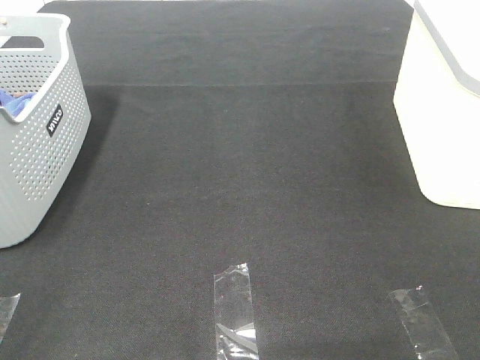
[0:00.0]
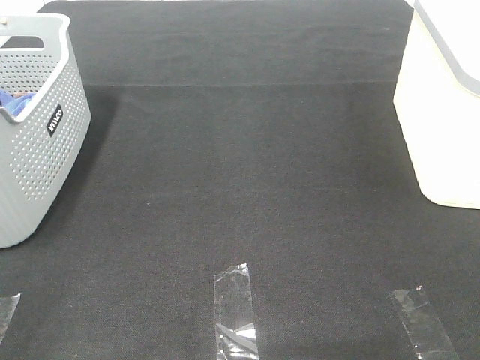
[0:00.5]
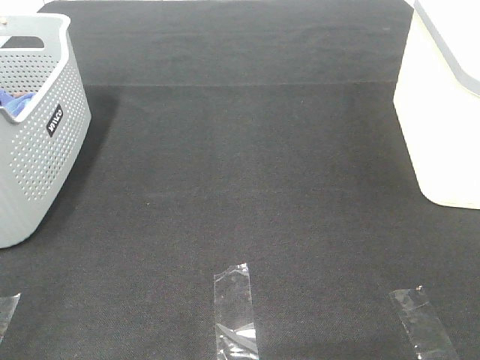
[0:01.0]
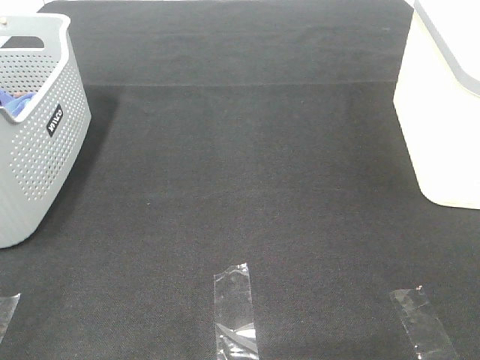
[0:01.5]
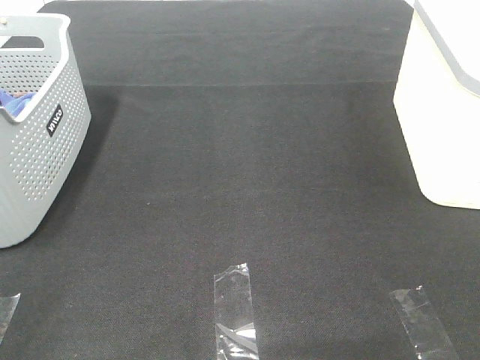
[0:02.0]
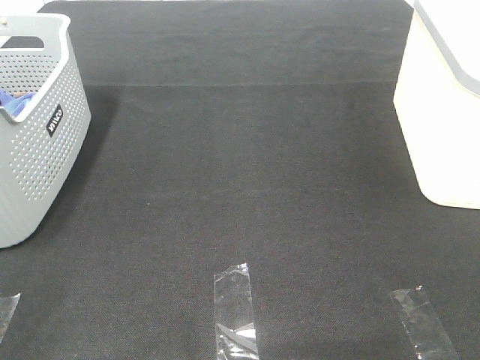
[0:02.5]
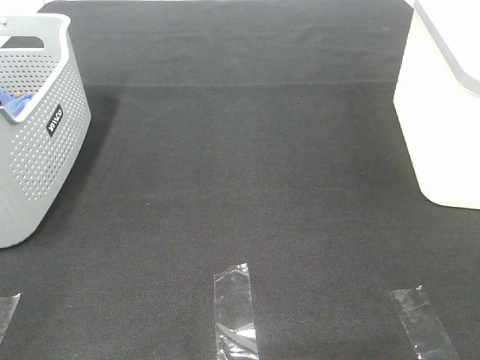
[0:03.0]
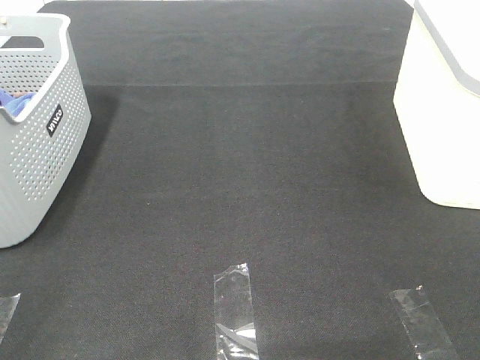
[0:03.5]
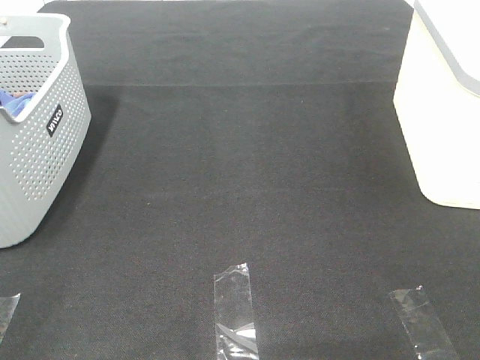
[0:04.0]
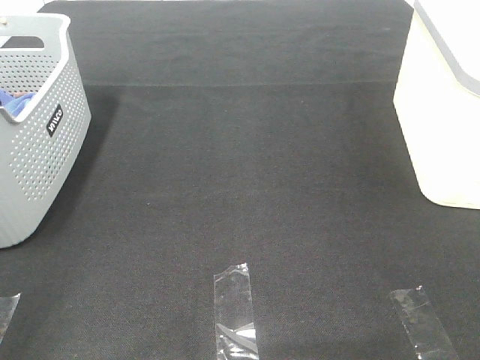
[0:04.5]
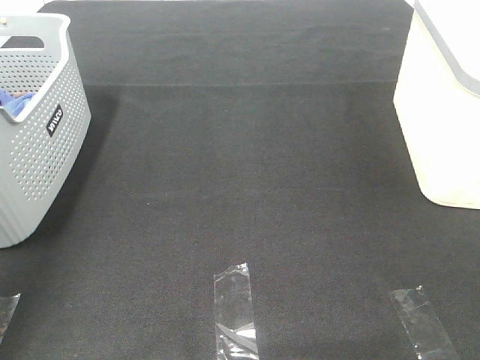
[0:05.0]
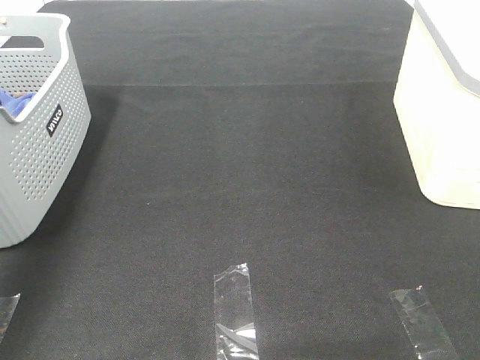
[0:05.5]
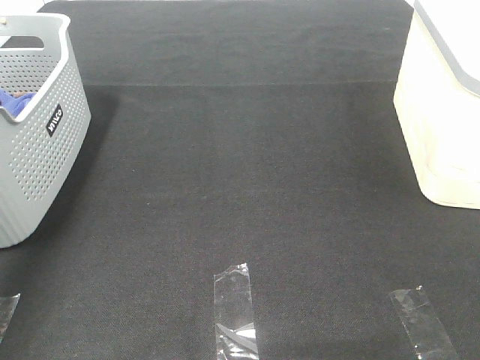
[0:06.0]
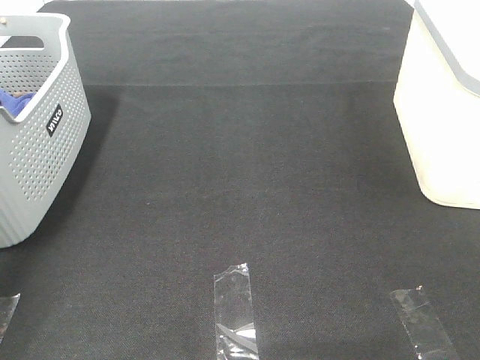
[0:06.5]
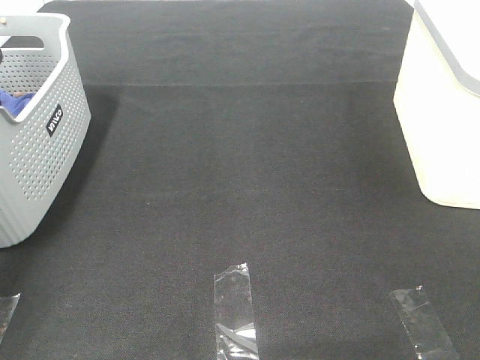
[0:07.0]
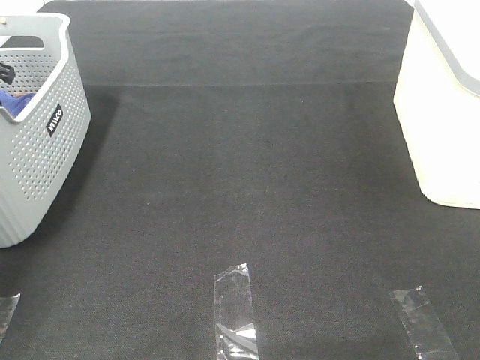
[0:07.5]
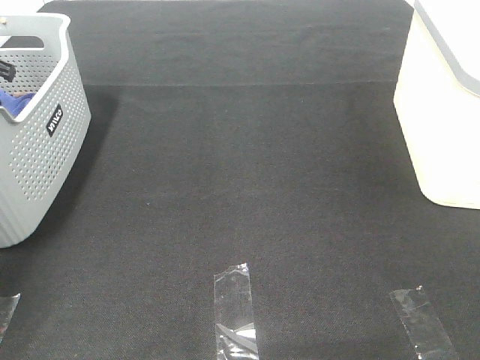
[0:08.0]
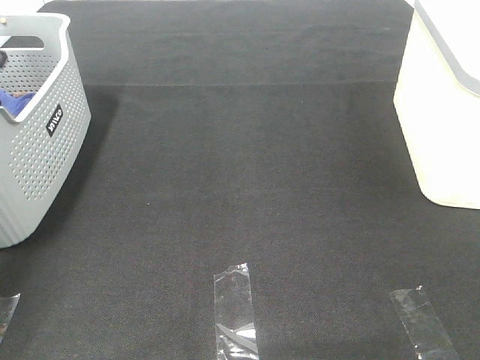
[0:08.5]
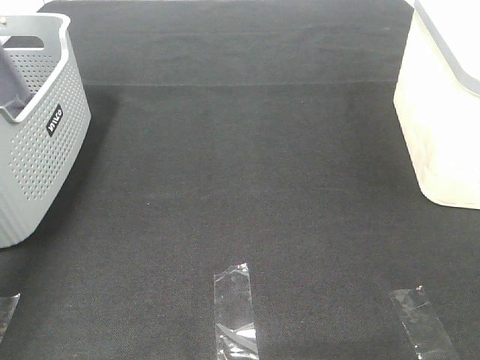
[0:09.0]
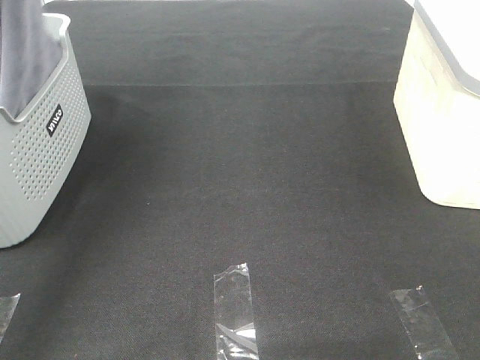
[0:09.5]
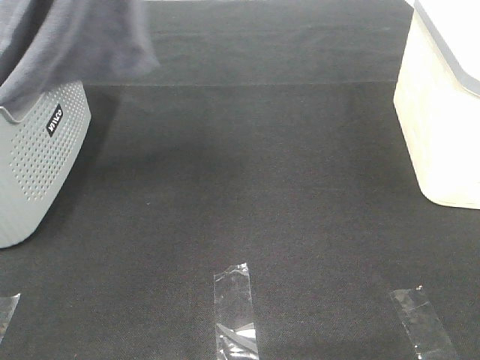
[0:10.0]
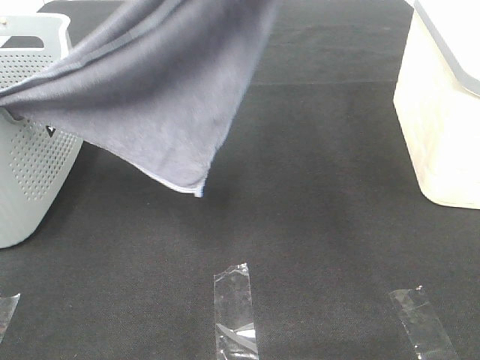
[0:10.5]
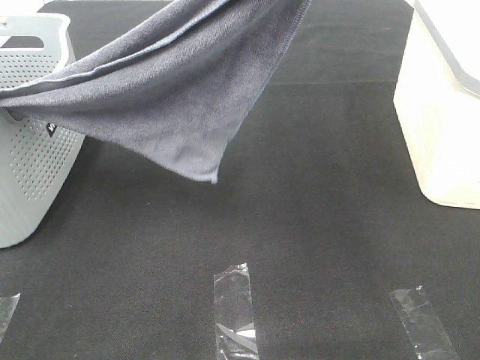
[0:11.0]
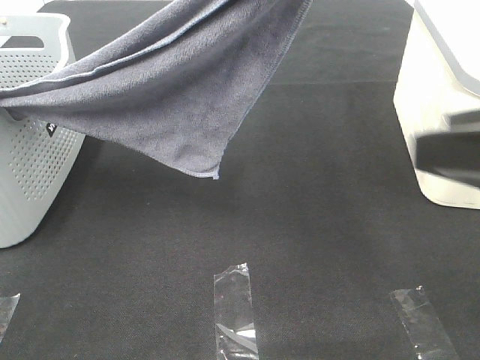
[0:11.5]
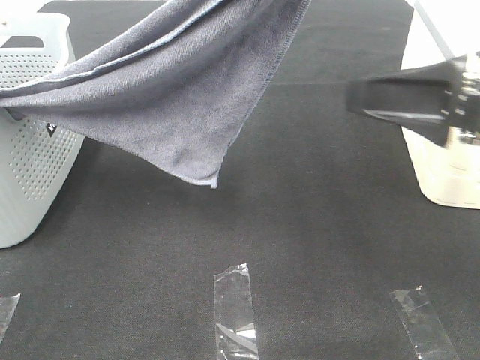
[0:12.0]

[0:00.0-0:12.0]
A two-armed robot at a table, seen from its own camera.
Task of the whole recording: Remove the towel and place it.
0.0 to 4.0 s: The two grippers keep their place.
4.0 to 6.0 s: The left gripper heads forward, covering approximately 40 cm.
8.0 to 10.0 s: The left gripper moves upward, to the right and backward, approximately 40 cm.
10.0 to 12.0 s: The right gripper moves forward, roughly 20 cm. Meanwhile the left gripper goes approximately 15 cm to the right and backward.

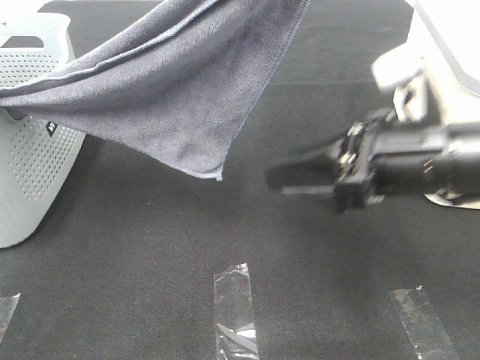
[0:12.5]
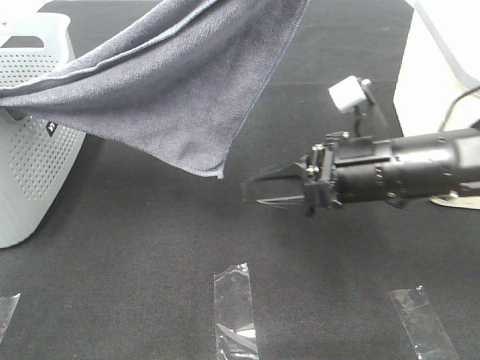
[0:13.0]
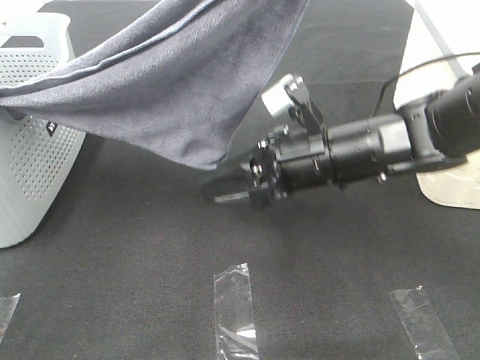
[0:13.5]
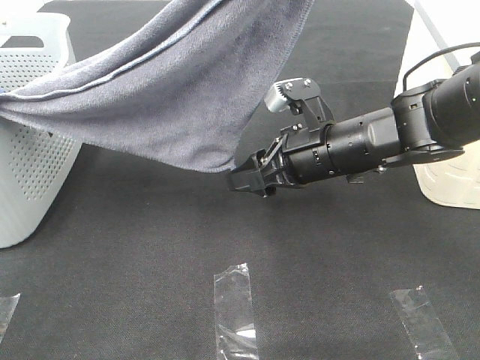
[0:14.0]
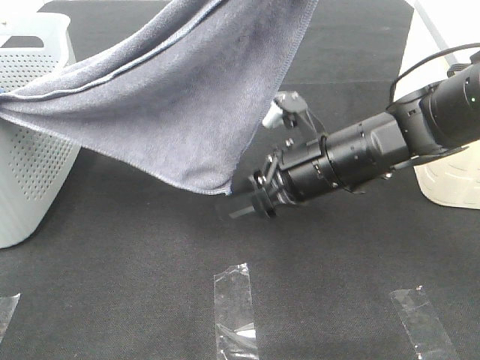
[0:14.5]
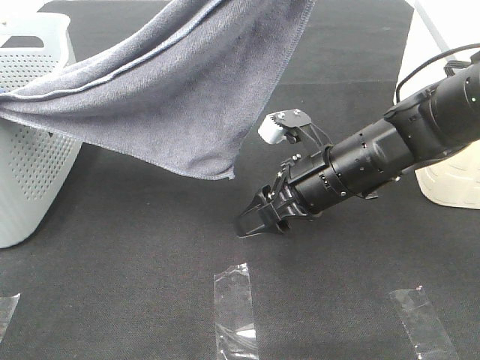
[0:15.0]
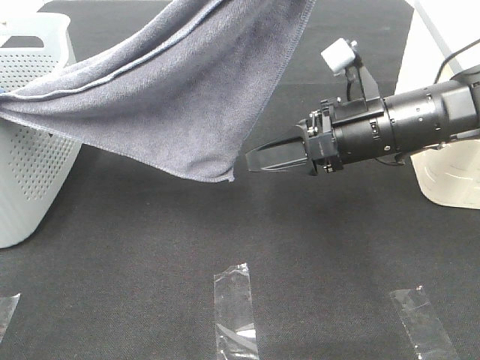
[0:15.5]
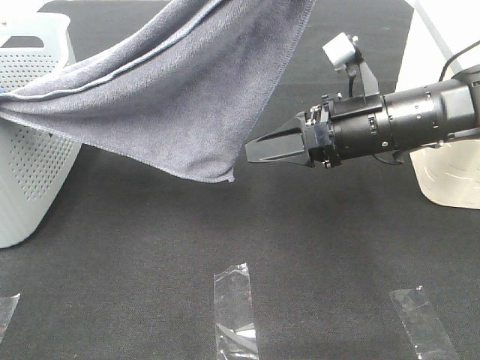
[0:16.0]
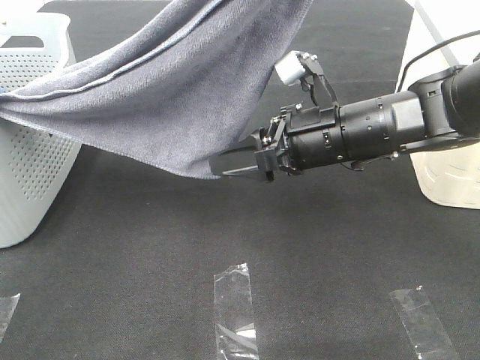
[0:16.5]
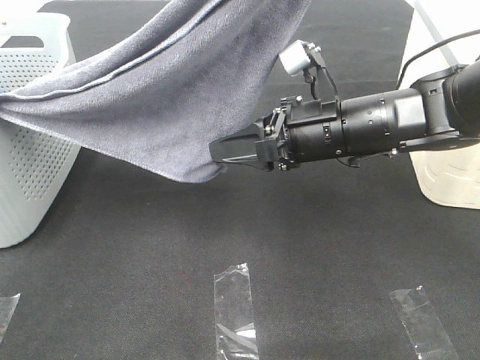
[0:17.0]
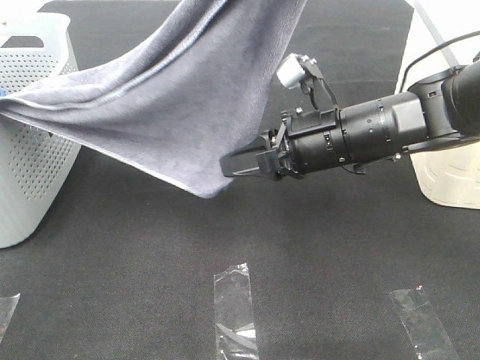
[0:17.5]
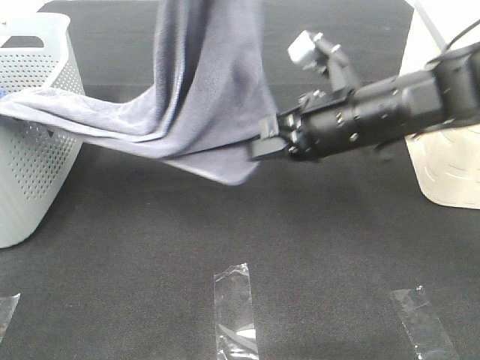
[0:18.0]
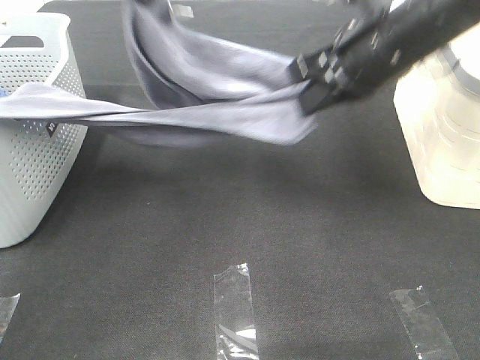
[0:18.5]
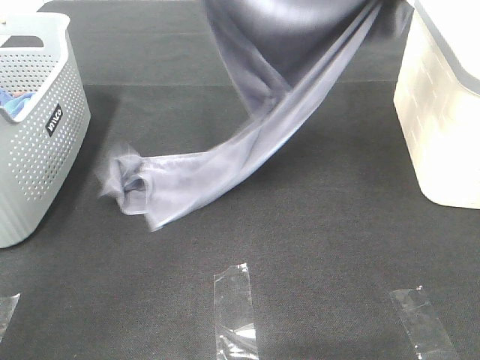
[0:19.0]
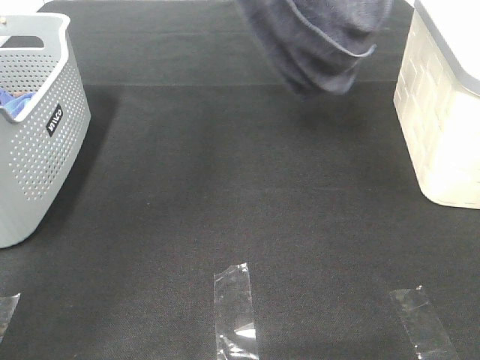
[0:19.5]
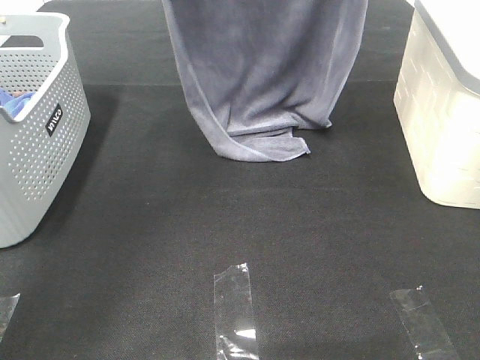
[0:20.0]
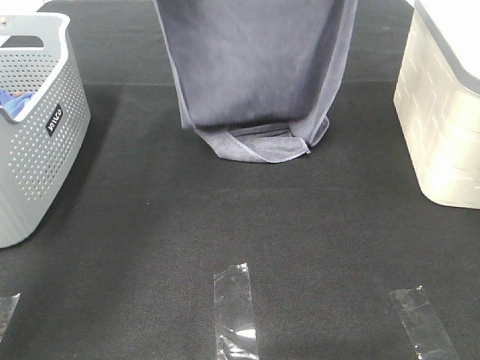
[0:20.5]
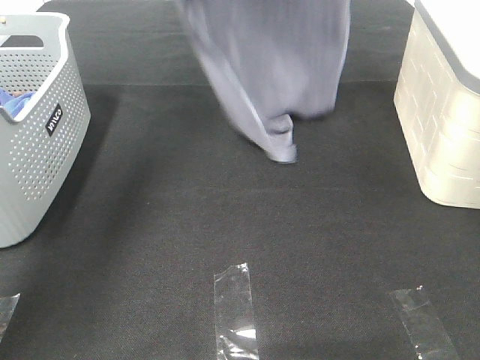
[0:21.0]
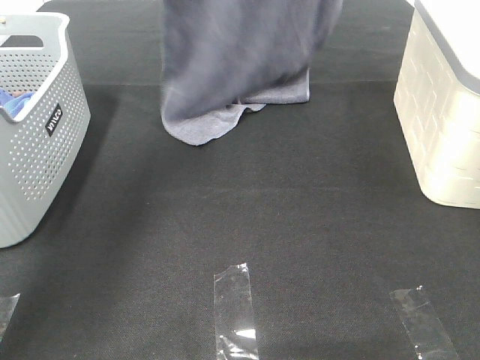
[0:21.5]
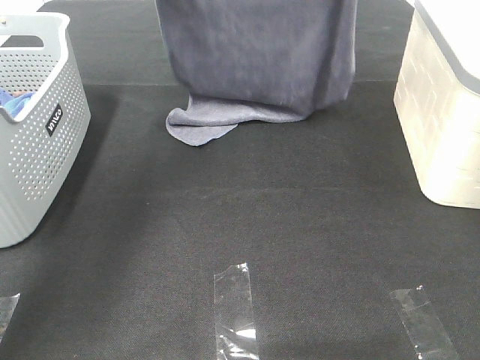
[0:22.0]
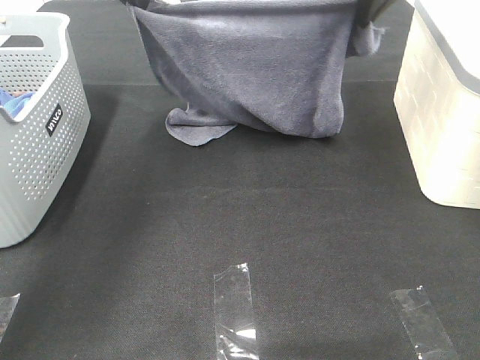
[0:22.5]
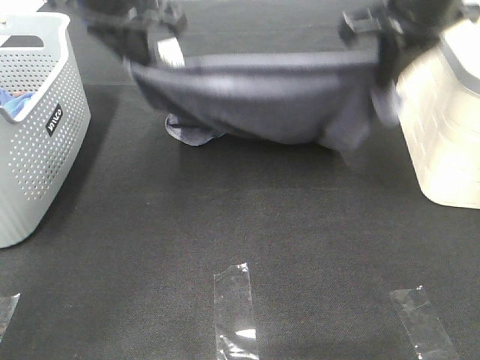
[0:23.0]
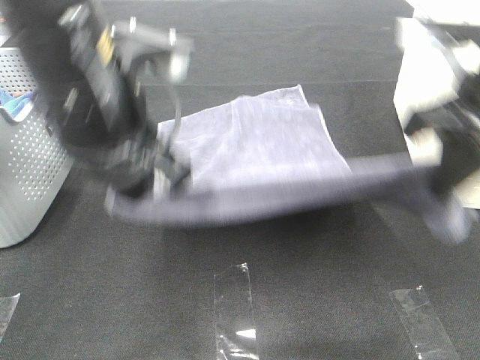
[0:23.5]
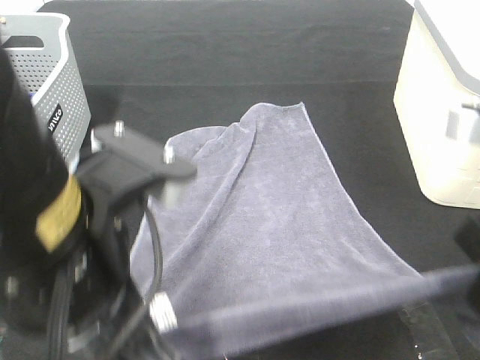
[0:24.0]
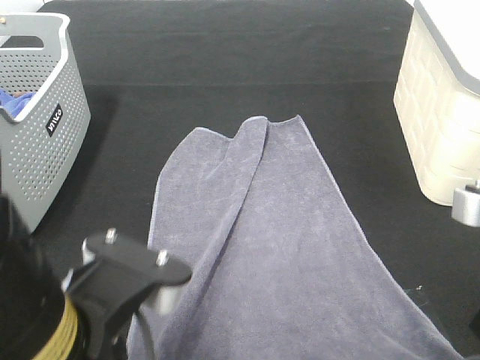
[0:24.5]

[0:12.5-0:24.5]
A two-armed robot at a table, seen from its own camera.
Task of the whole recording: Remove the towel and place it.
Step, 12.5 to 16.5 s: Right hand: grab a corner of the grey towel and straighten it.
Step, 17.0 to 20.5 s: Left hand: spread the grey towel flat on the table.
Step, 17.0 to 20.5 s: Right hand: spread the grey towel flat on the table.
12.5 to 14.5 s: The right gripper goes about 10 cm forward, downward and to the left.
14.5 to 16.5 s: The grippers make only small movements.
16.5 to 18.5 s: The left gripper is displaced forward, to the left and downward by about 15 cm; the right gripper is displaced upward by about 10 cm, and closes.
18.5 to 20.5 s: The left gripper shifts approximately 10 cm forward, and reaches about 15 cm upward, then returns. Meanwhile the right gripper goes roughly 15 cm forward and upward.
20.5 to 22.5 s: The left gripper moves about 10 cm upward and comes back.
22.5 to 24.5 s: Both grippers travel together backward, some 35 cm.

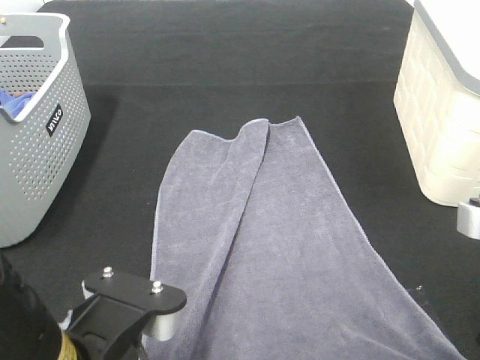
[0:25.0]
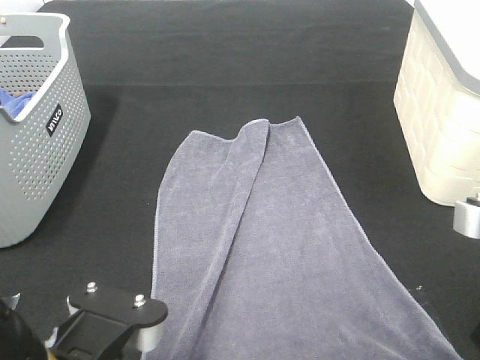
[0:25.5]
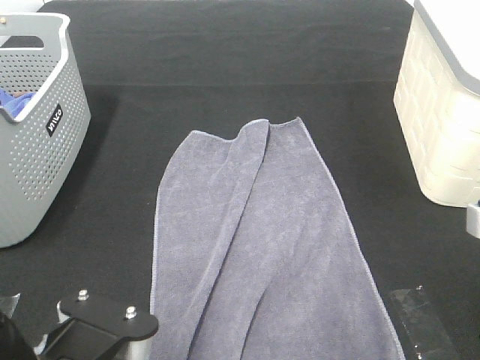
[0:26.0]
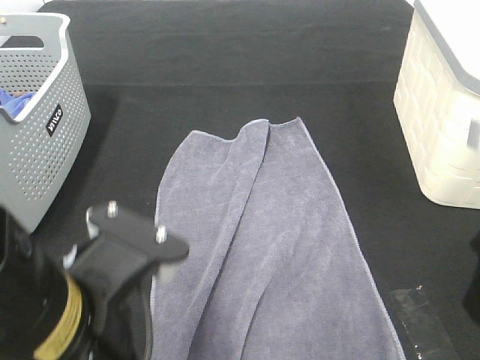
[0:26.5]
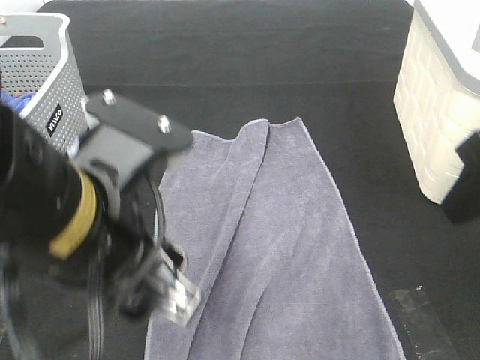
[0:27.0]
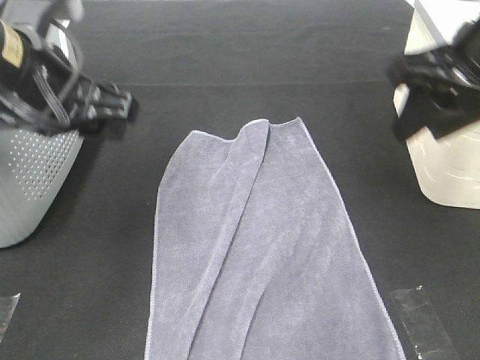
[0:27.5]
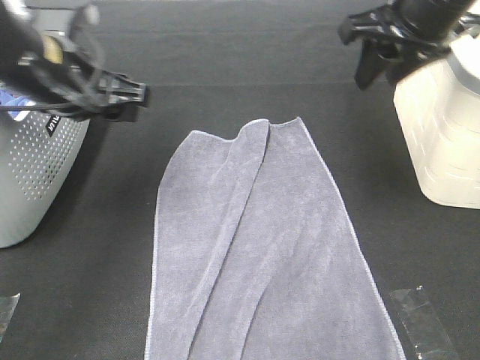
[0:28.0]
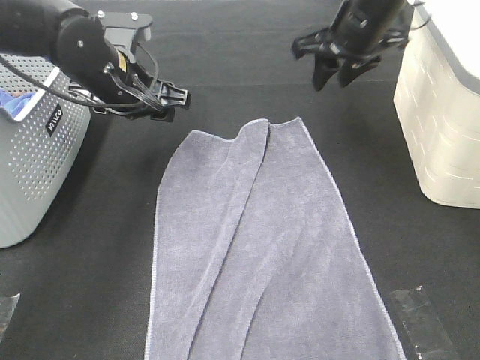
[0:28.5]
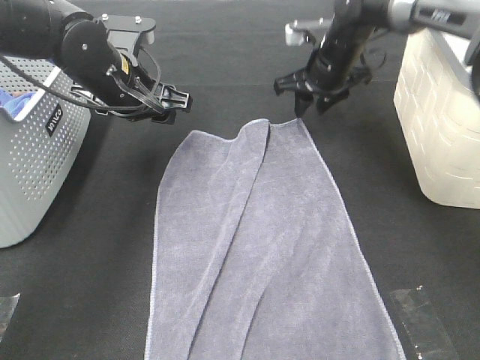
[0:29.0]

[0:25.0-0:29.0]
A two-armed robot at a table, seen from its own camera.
Task of the whole recording: Remove the towel and place it.
Step, 25.0 to 28.5 s: Left hand:adjust the gray towel.
Step, 25.0 to 28.5 s: Right hand:adjust the gray towel.
25.0 to 27.0 s: The right gripper is displaced upward and forward by some 10 cm, and opens. The left gripper travels forward and upward by roughly 10 cm, and opens up.
27.0 to 29.0 s: The right gripper goes approximately 35 cm forward and downward. Meanwhile the left gripper moves forward, roughly 25 cm.
